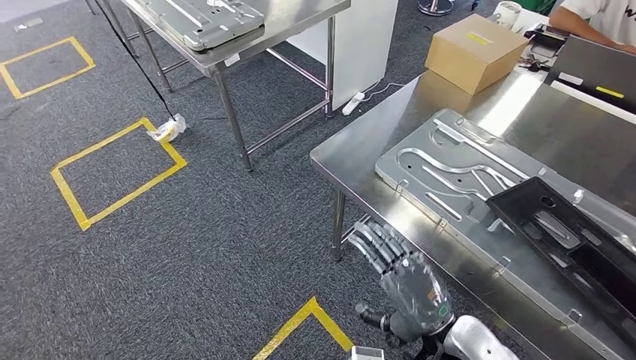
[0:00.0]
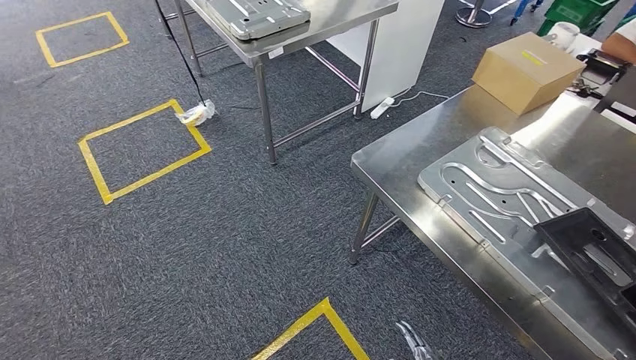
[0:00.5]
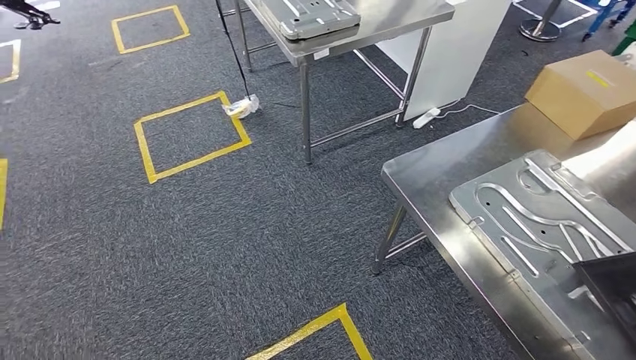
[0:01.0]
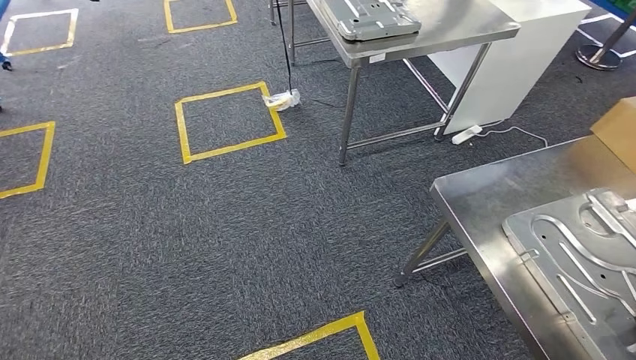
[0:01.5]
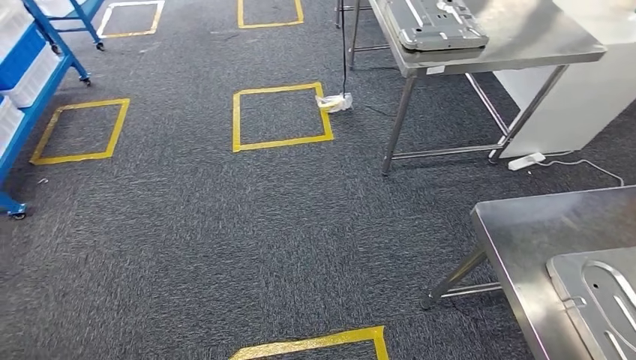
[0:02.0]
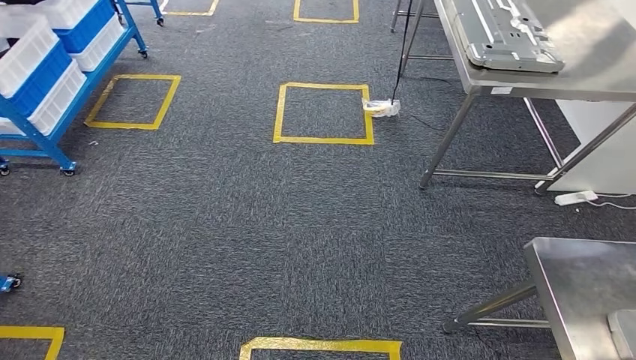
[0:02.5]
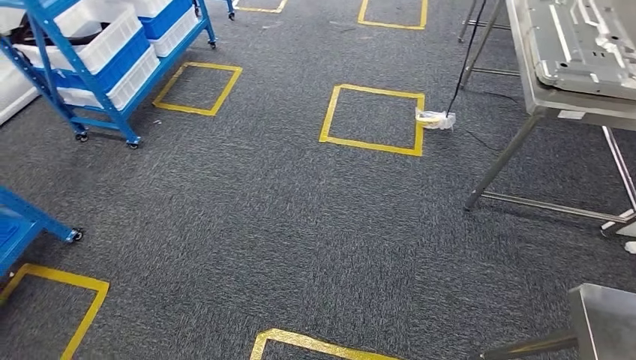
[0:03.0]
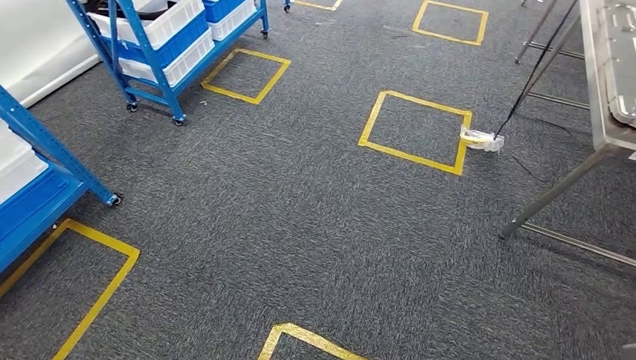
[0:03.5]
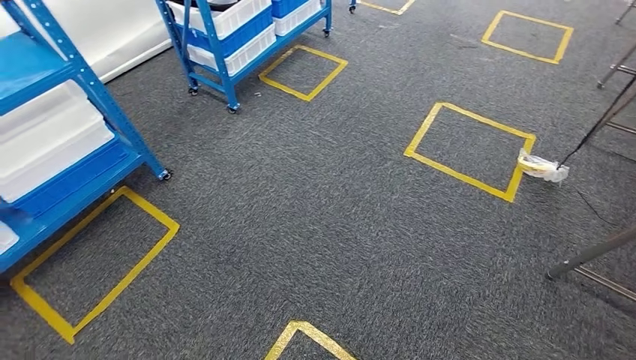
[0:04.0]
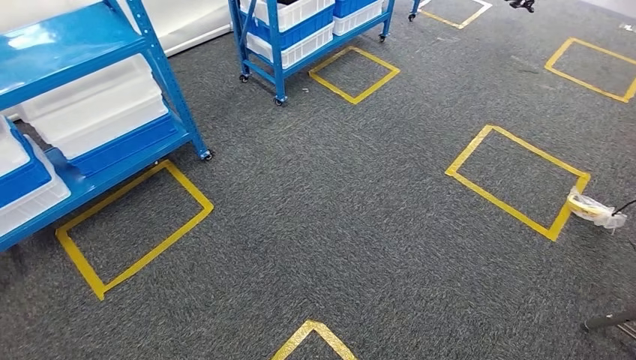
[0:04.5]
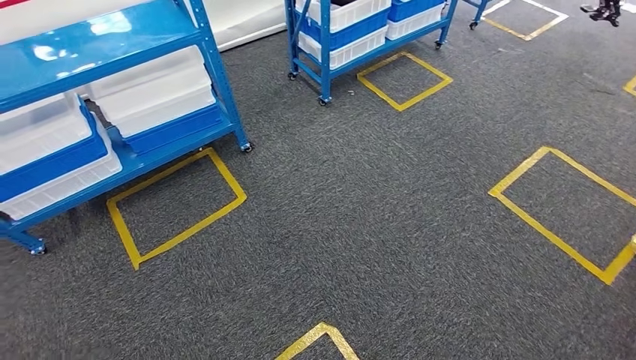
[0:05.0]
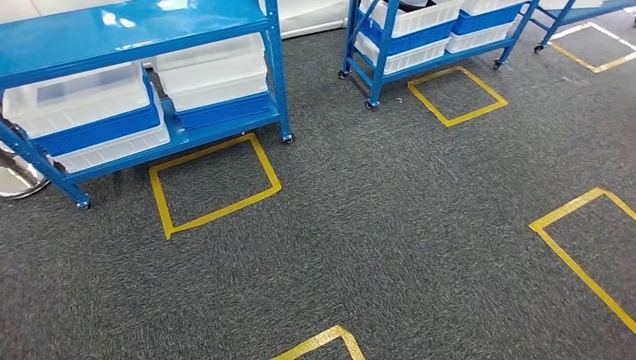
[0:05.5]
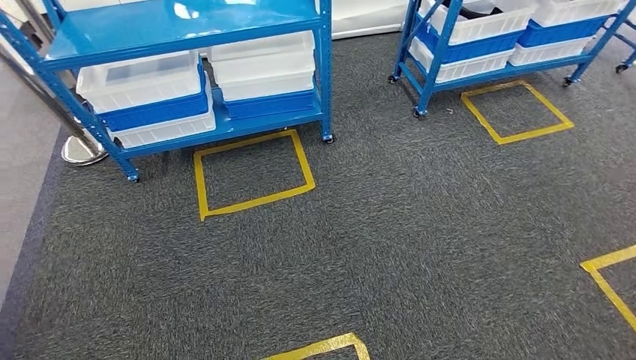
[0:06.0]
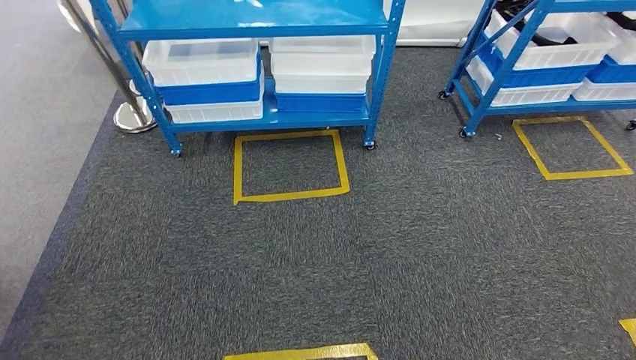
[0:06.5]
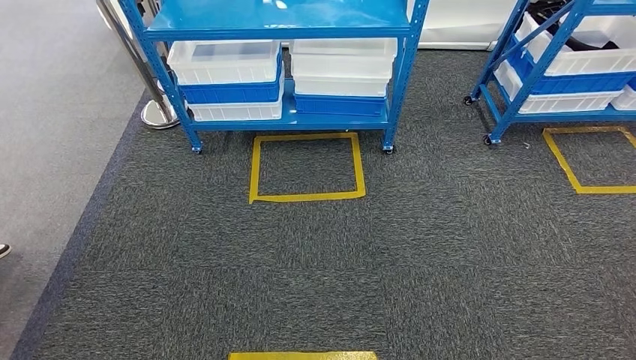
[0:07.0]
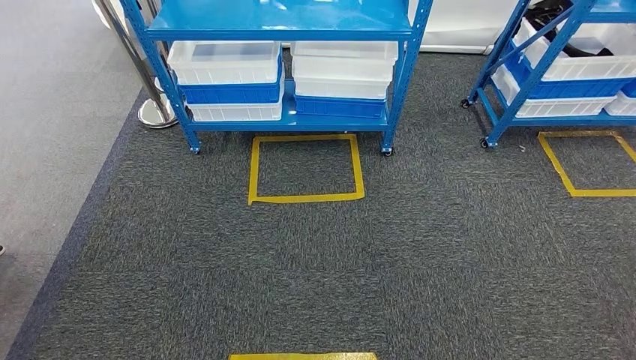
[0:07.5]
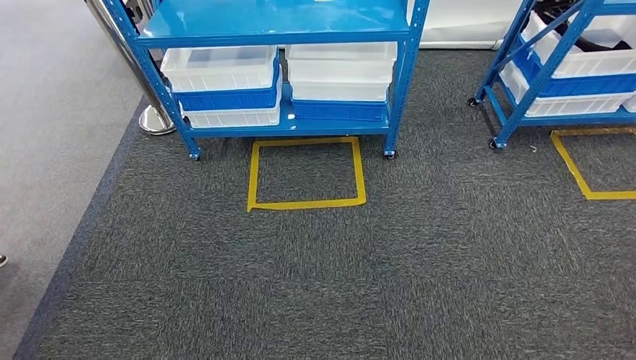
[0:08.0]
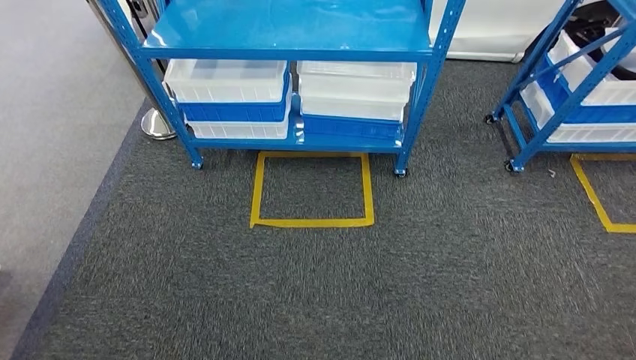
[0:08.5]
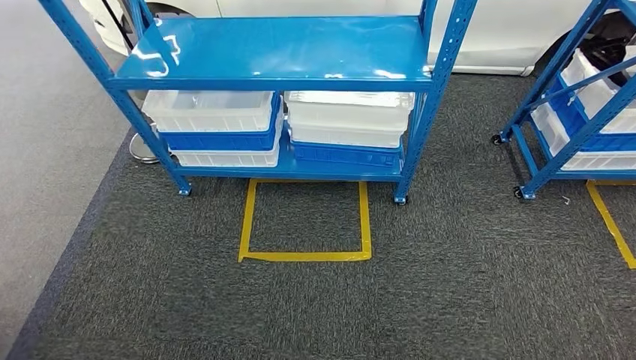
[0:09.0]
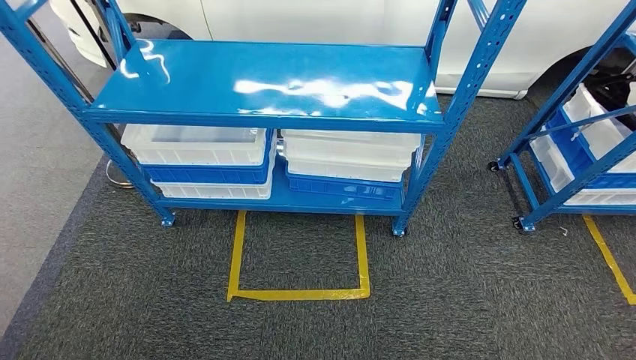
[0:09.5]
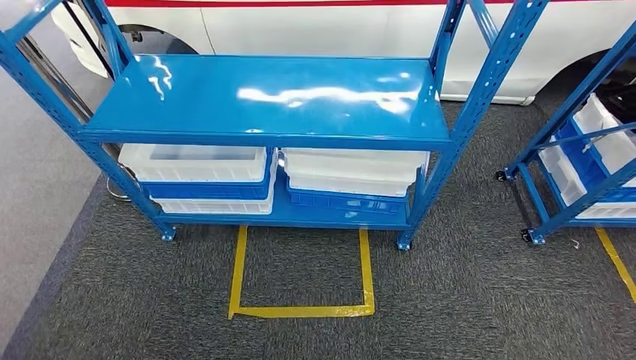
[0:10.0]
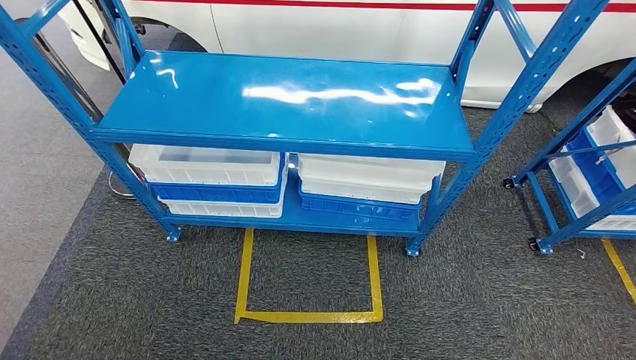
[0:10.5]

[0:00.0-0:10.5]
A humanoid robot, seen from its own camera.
Step, 0:02.0 to 0:10.5: Move to the initial position of the shelf.

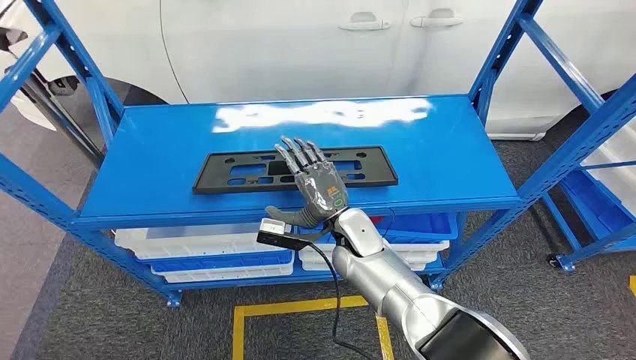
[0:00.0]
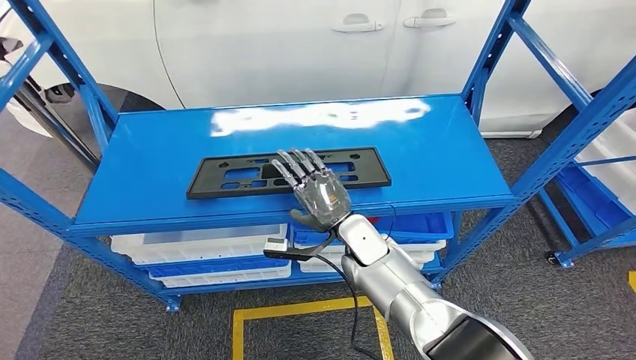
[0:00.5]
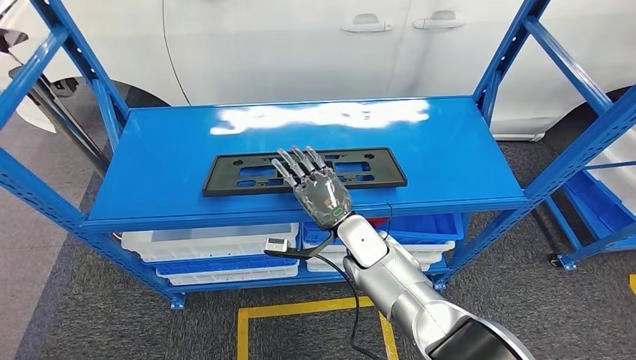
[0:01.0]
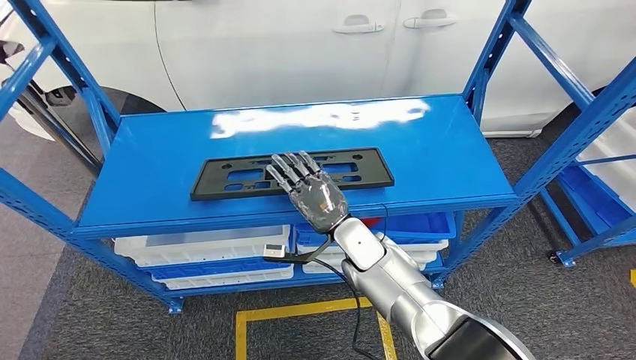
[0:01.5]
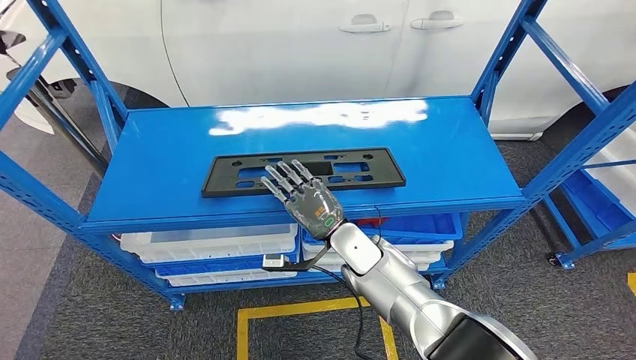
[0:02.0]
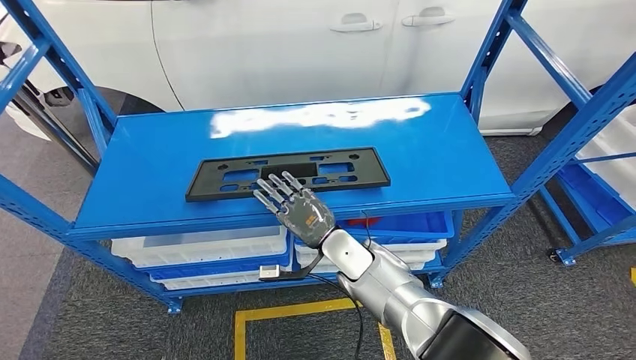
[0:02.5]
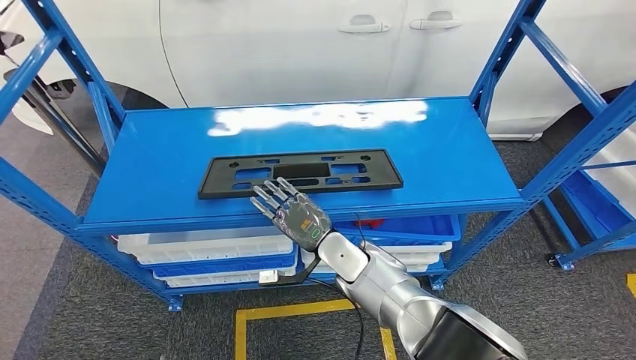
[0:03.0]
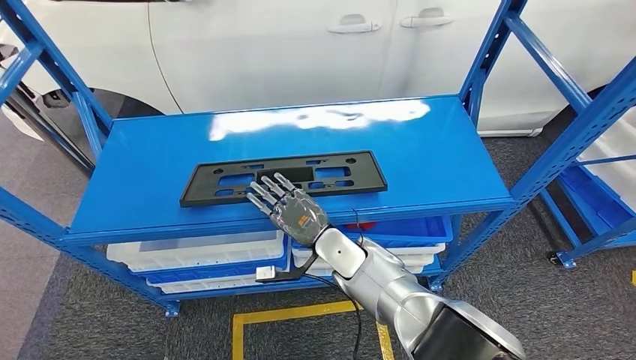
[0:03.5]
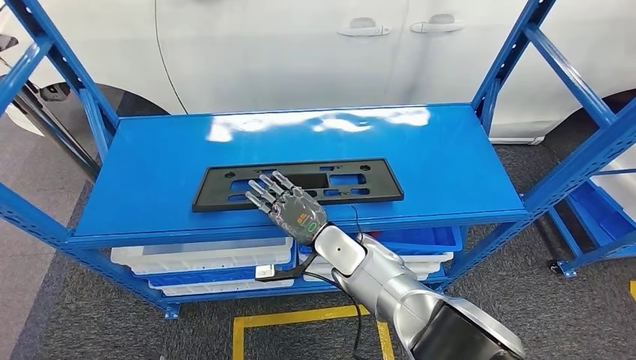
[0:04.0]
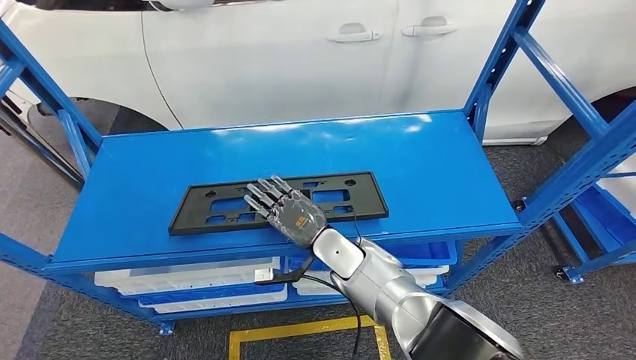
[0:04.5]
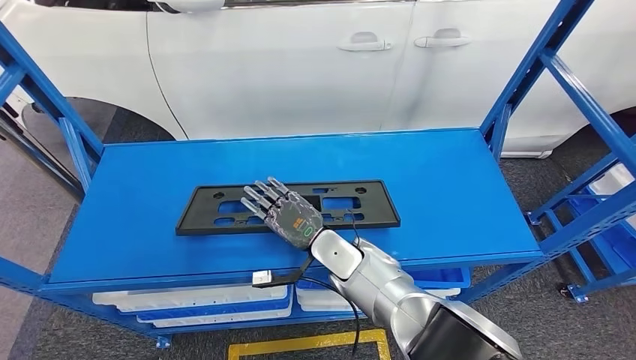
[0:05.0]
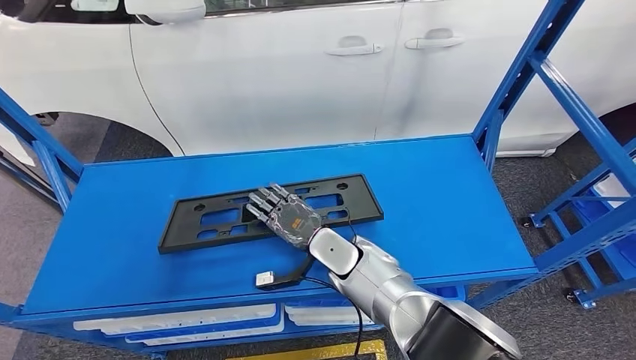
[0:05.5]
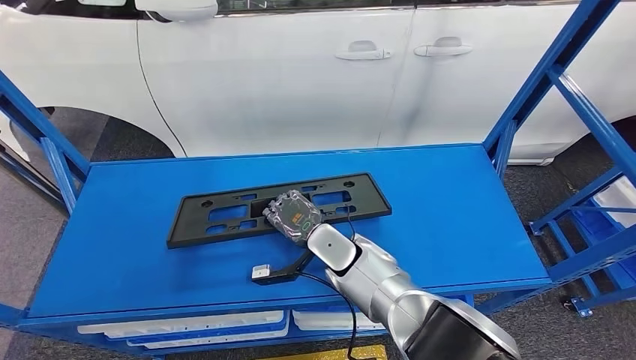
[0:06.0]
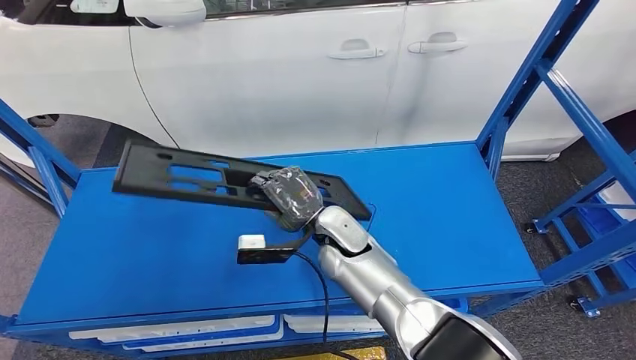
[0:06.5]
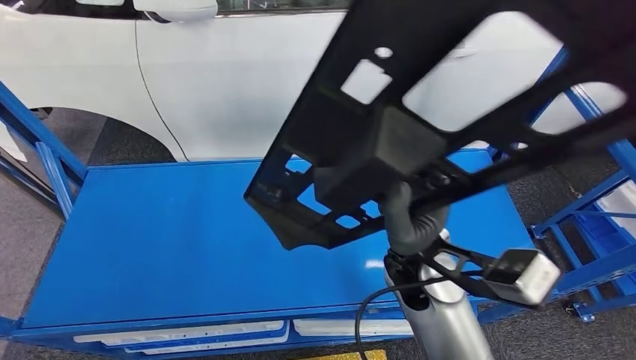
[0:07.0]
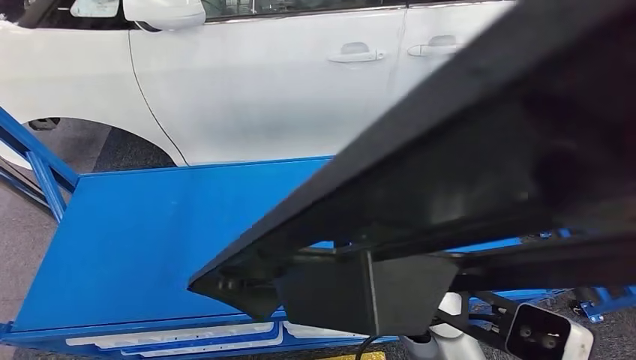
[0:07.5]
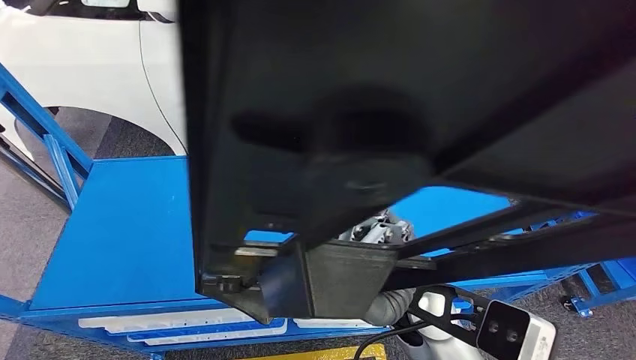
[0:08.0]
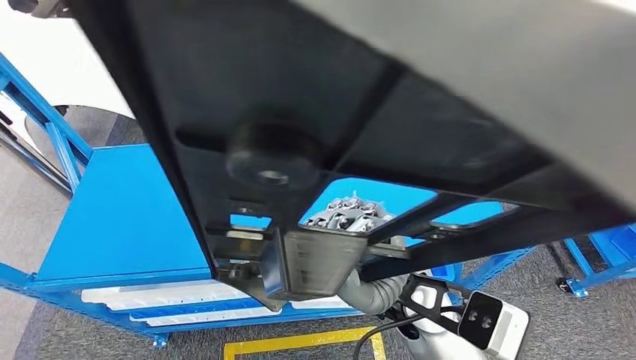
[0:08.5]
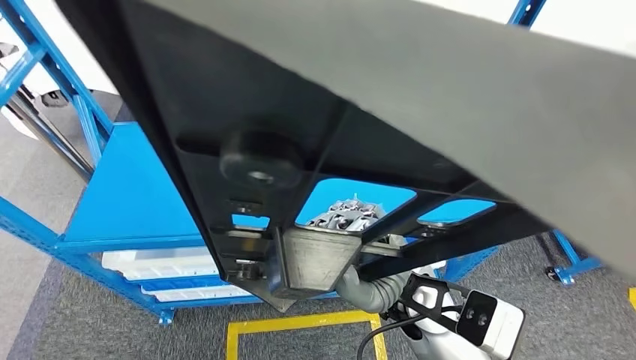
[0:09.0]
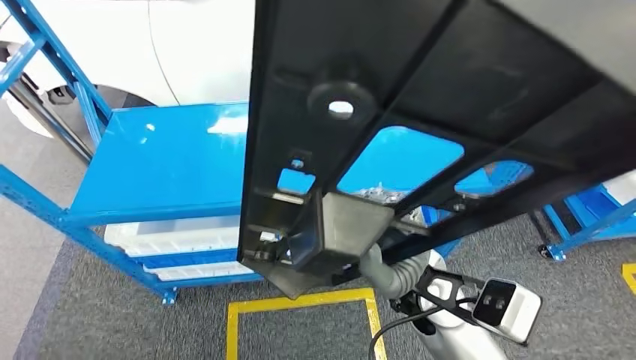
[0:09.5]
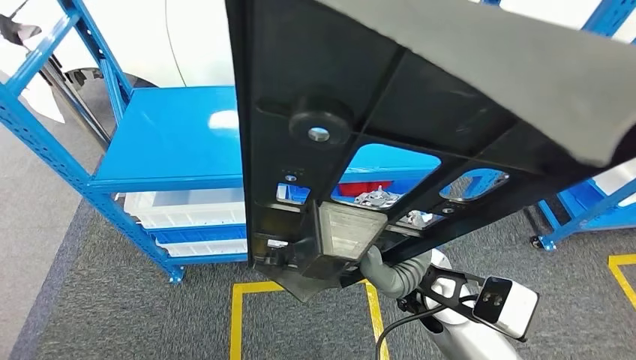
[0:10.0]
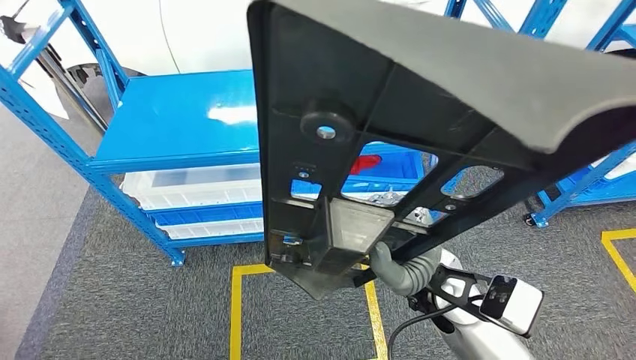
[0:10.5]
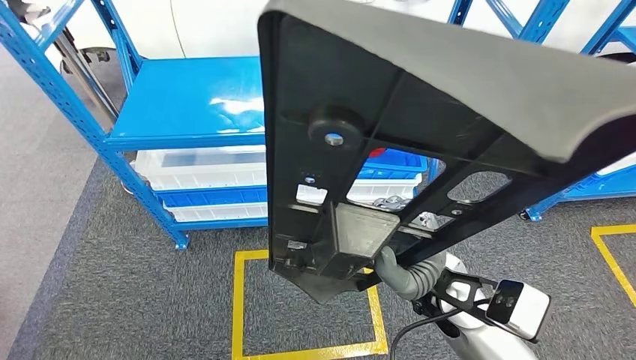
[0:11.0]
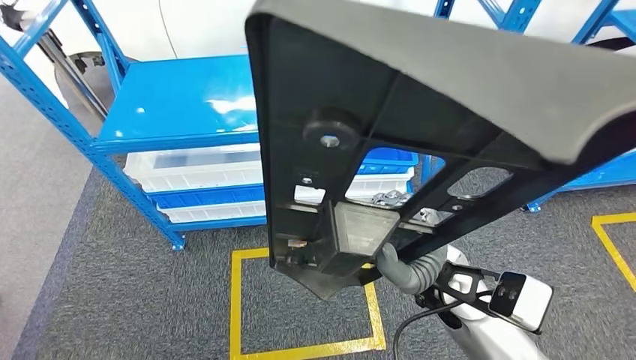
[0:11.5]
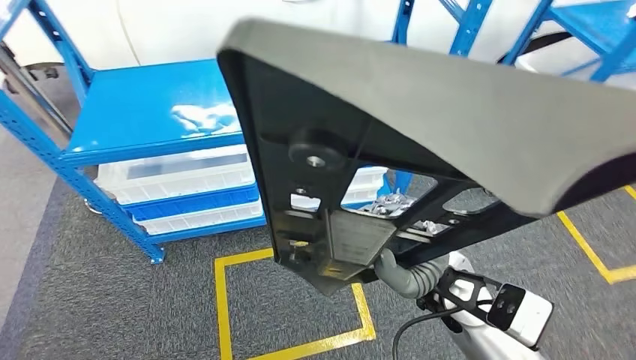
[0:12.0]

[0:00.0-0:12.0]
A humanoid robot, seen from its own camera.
Step, 0:00.0 to 0:07.0: Pick up the large material from the shelf.
